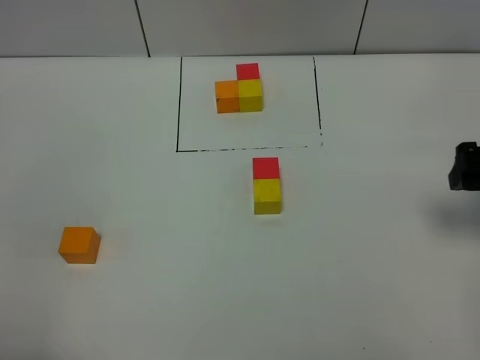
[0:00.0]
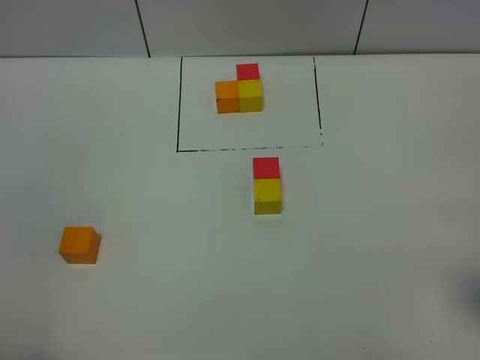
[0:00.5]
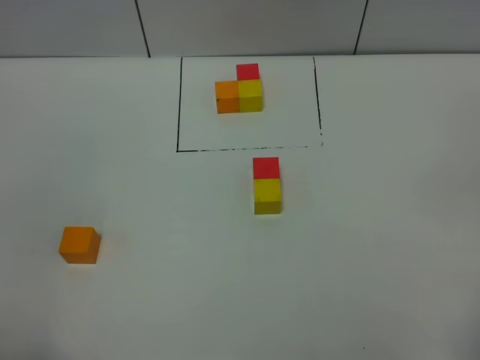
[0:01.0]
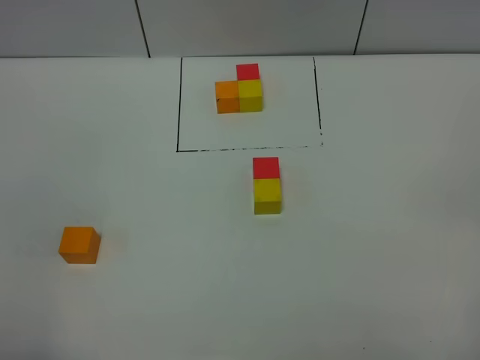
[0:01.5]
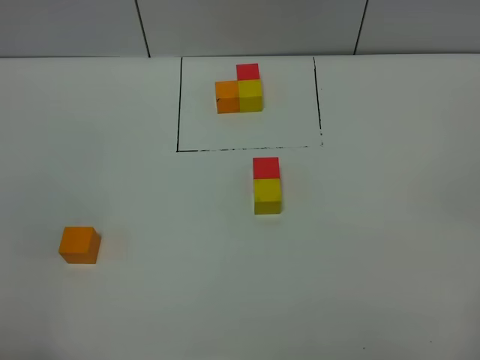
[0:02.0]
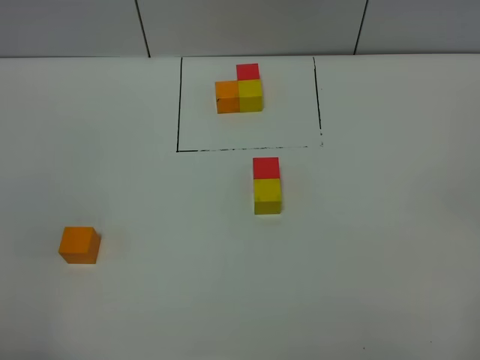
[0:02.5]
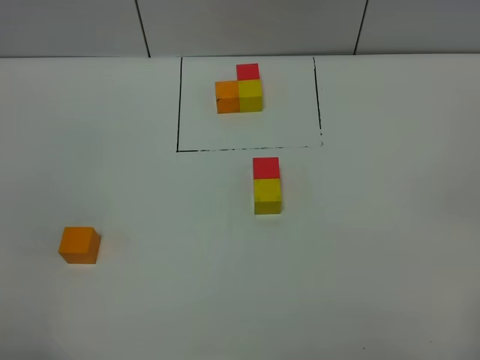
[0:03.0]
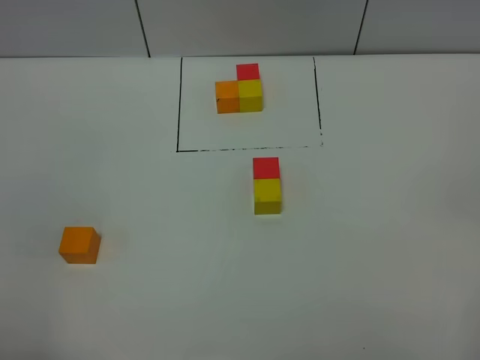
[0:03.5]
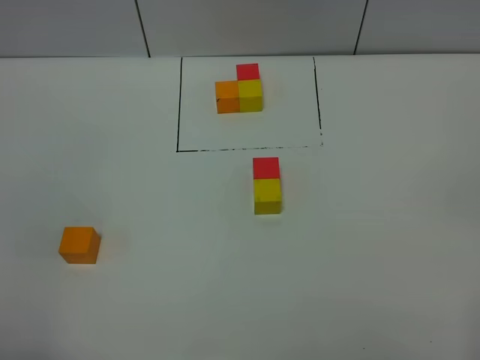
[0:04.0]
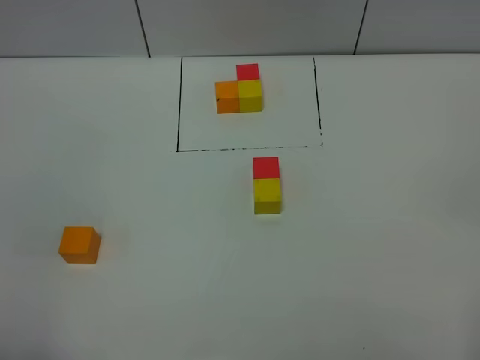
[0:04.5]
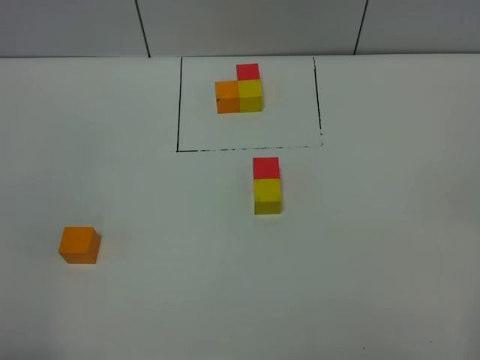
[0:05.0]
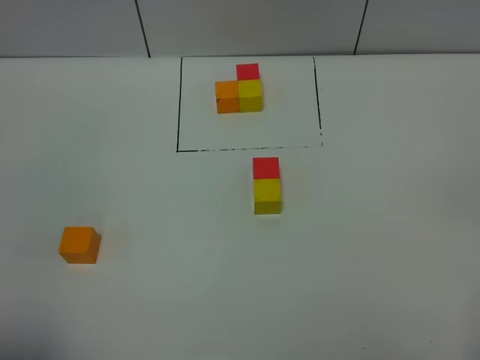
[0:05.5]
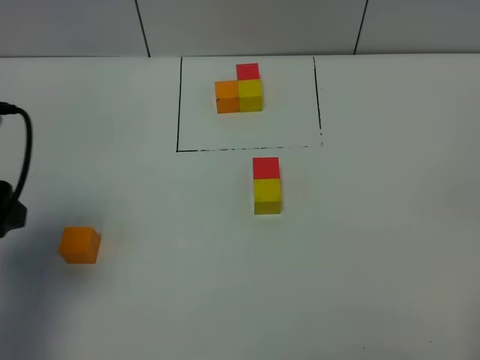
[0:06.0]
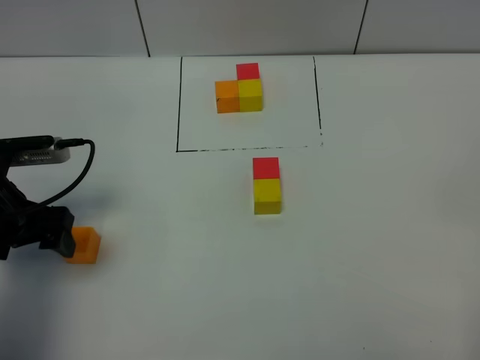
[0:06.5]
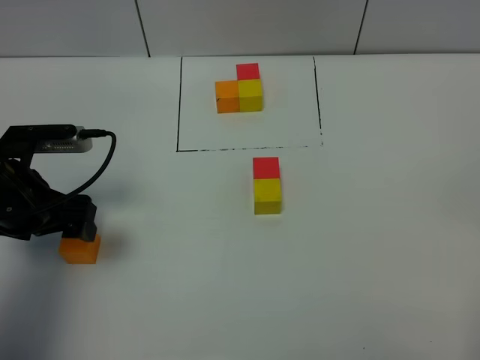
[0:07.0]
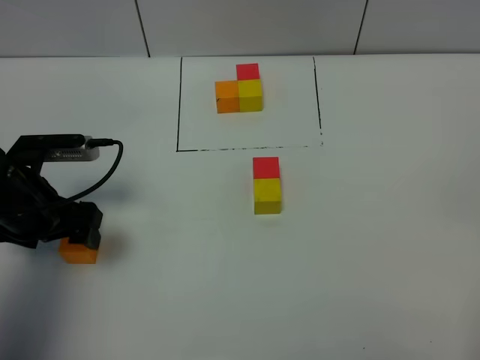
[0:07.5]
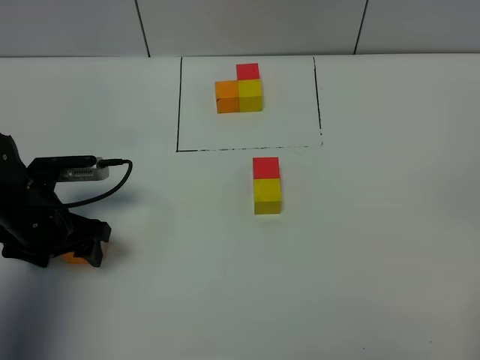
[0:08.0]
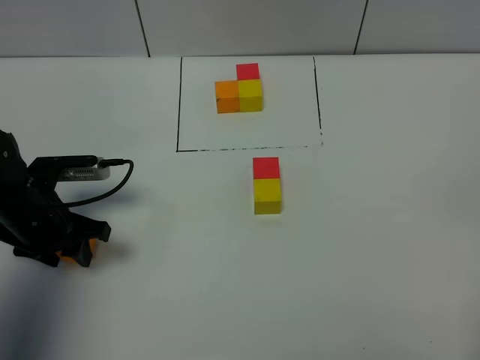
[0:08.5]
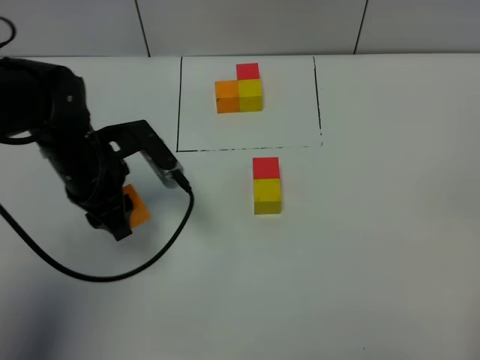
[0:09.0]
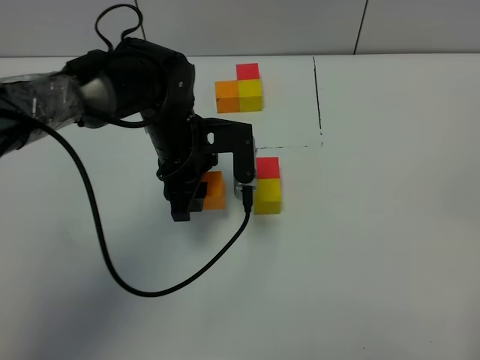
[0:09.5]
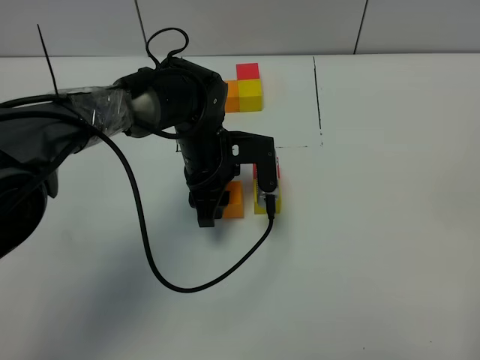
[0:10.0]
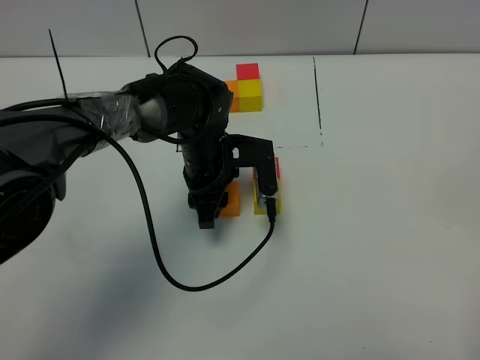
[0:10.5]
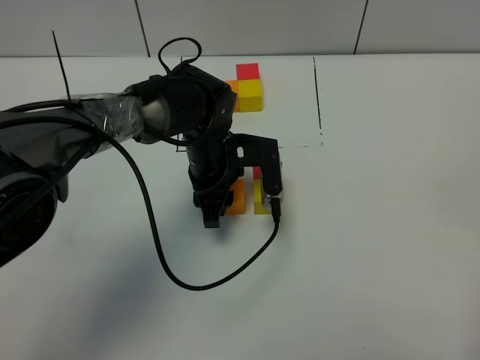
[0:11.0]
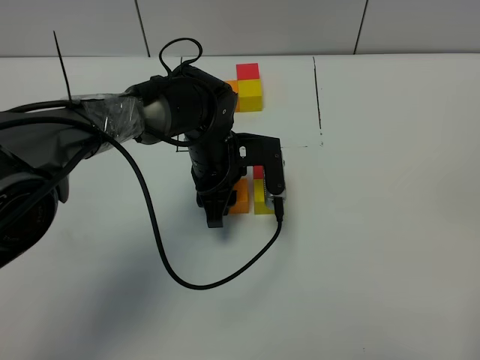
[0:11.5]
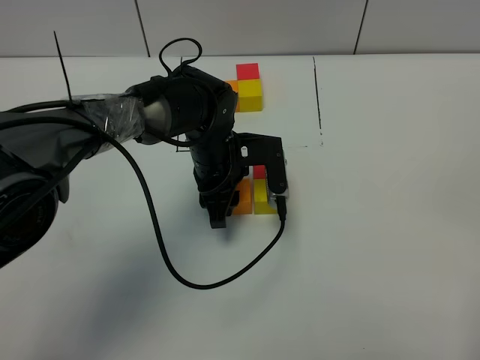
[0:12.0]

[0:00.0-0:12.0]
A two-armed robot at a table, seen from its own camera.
Task of the whole recording: According to the building block template in front, assemble the scattered blocks together.
0.0 to 2.0 s: The right gripper heads backward, covering about 25 cm.
2.0 to 4.0 s: The two grippers keep their place.
4.0 to 6.0 s: The left gripper heads forward, covering some 20 cm, and closes and opens again.
6.0 to 8.0 s: The left gripper heads downward and forward, covering approximately 15 cm.
8.0 to 10.0 s: The left gripper travels to the right by about 20 cm, and closes up.
10.0 to 12.0 s: The two grippers keep their place.

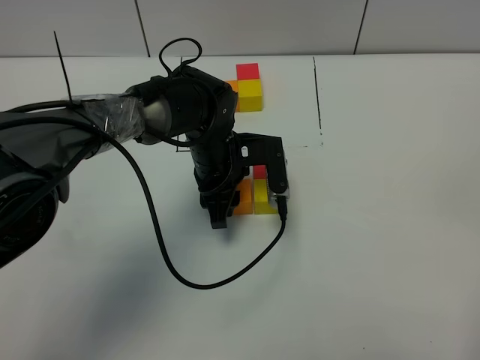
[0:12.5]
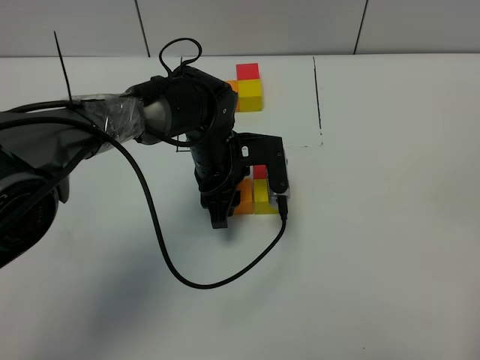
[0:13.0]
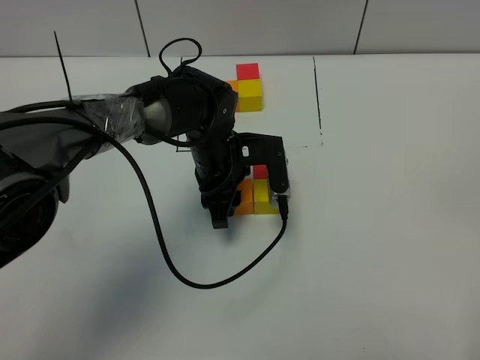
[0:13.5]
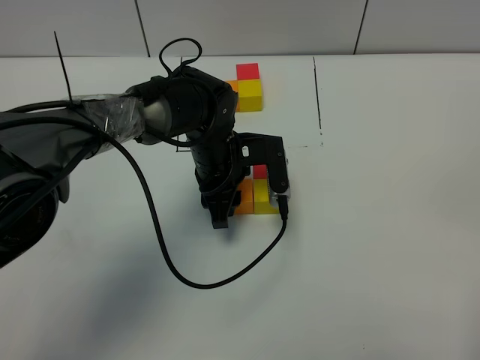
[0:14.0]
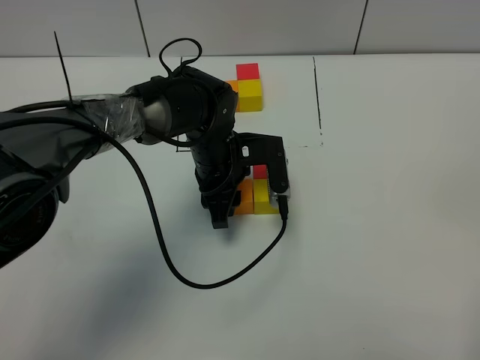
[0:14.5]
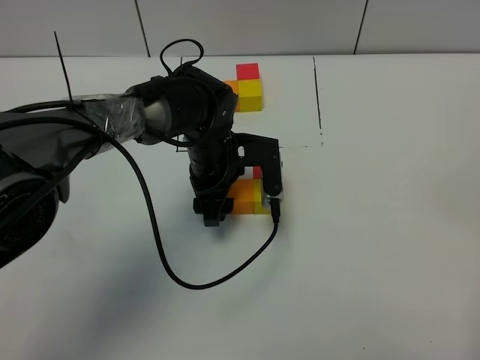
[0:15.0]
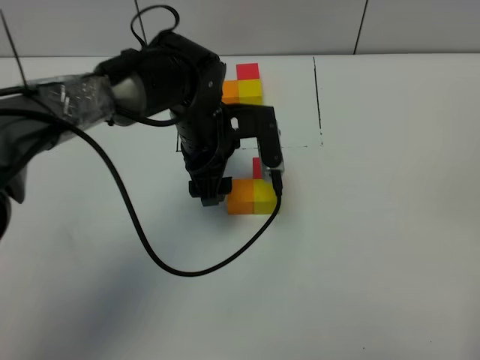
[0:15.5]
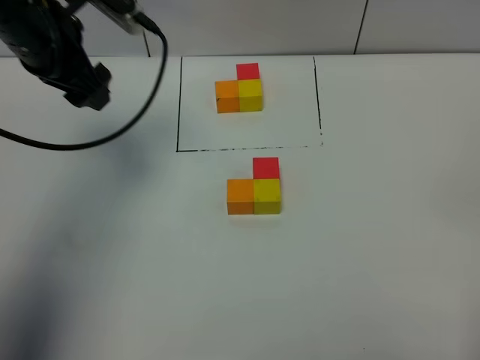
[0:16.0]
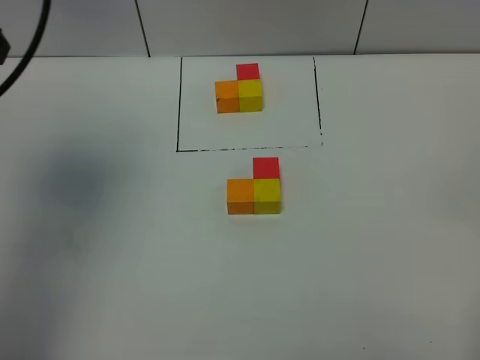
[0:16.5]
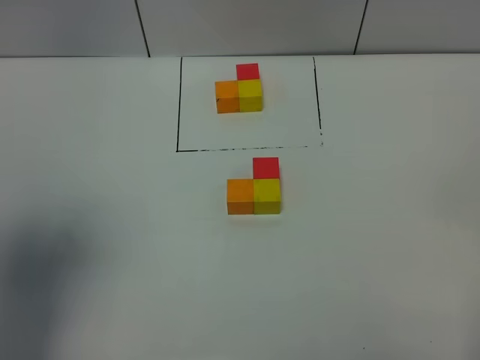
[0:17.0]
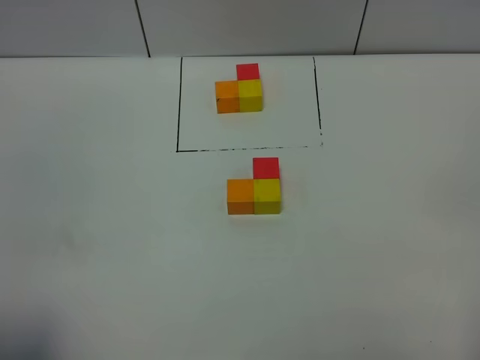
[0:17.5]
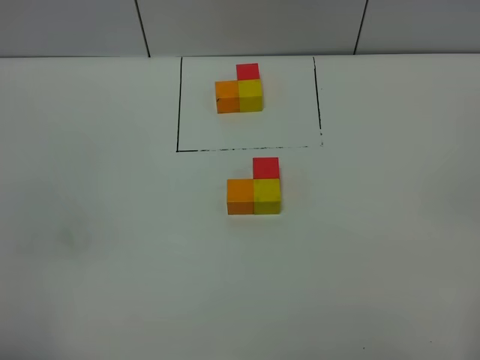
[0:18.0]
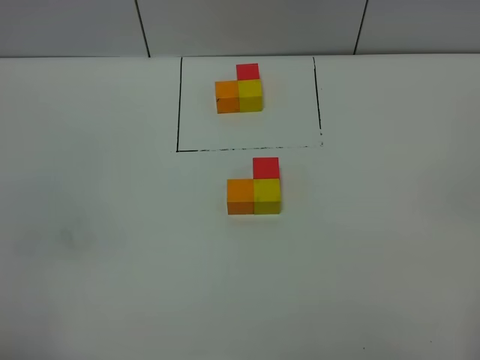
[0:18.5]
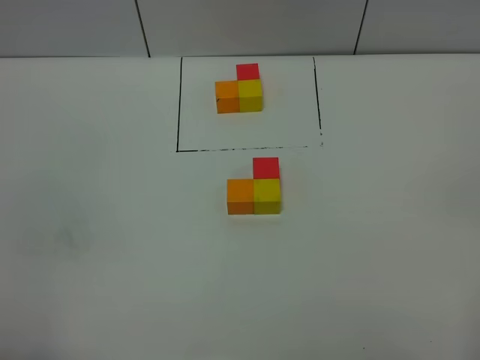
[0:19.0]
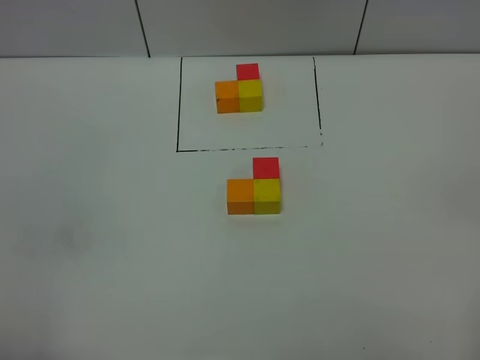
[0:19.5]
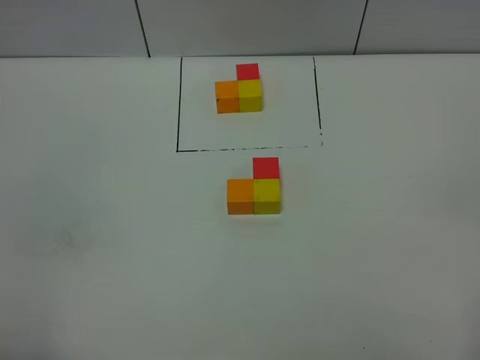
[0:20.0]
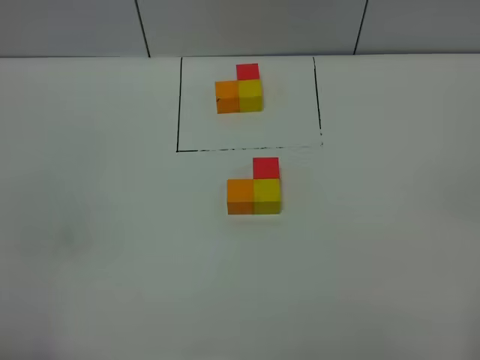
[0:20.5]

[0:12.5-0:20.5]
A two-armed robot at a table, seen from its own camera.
Task of the whole recording: According to the building block template in front, assemble the scattered blocks together.
Step, 12.5 to 15.0 s: Put the orange build block on the left of the yellow build block.
12.5 to 14.5 s: Both grippers stay put.
14.5 to 16.5 s: The left gripper heads upward and to the left, covering about 40 cm, and opens up.
16.5 to 18.5 s: The left gripper goes about 35 cm backward and downward.

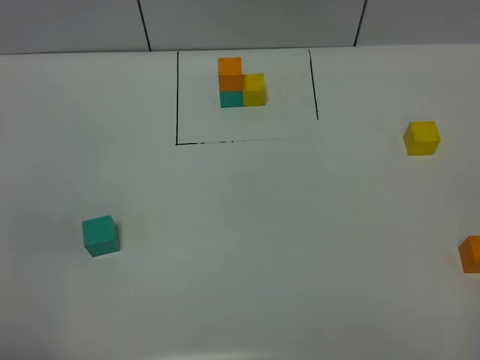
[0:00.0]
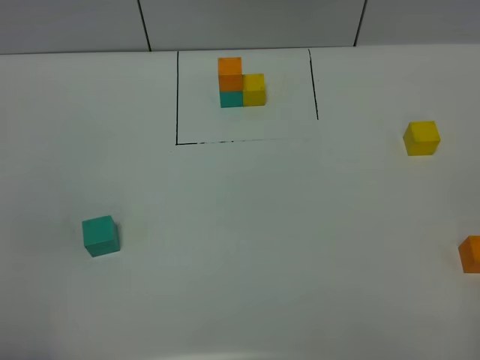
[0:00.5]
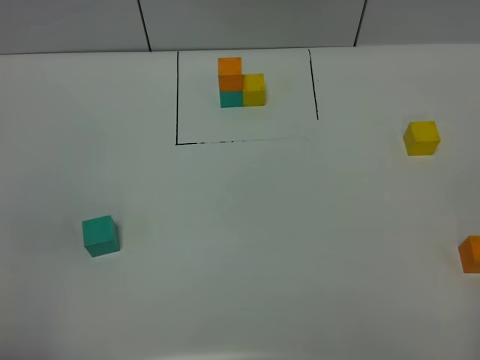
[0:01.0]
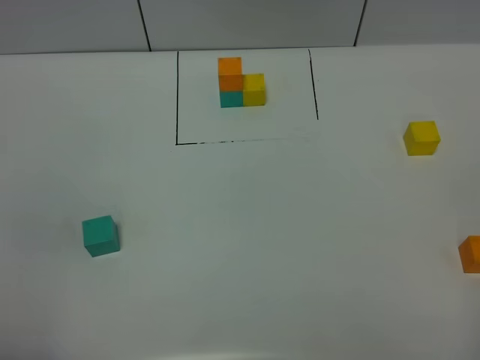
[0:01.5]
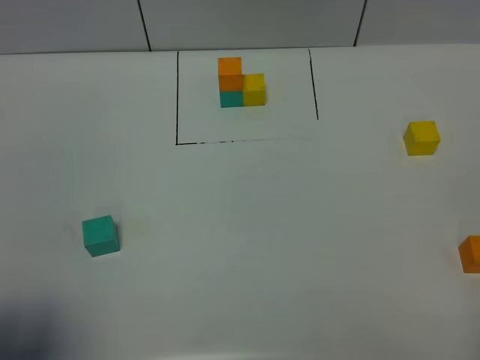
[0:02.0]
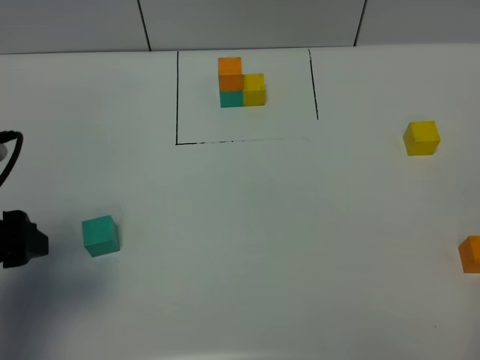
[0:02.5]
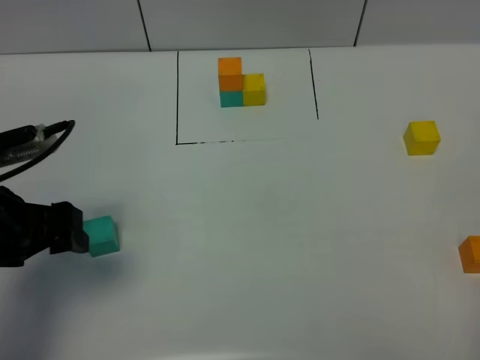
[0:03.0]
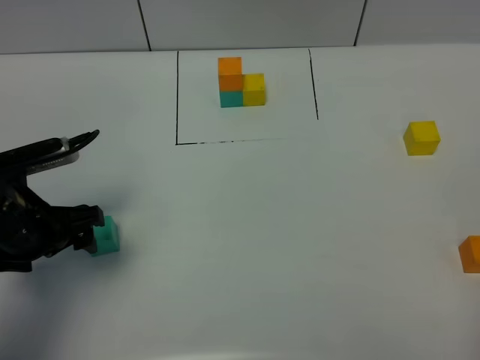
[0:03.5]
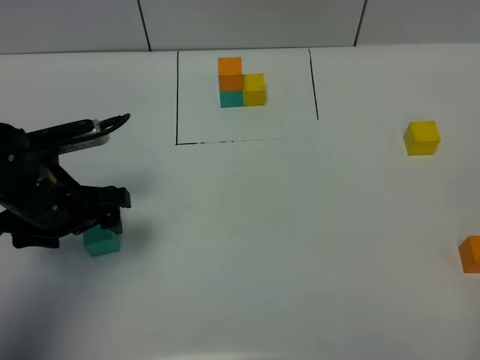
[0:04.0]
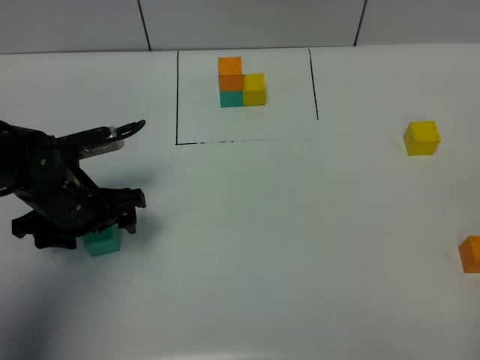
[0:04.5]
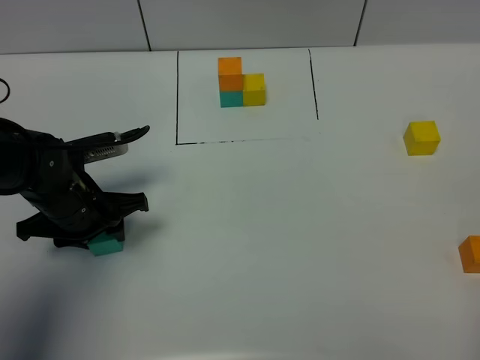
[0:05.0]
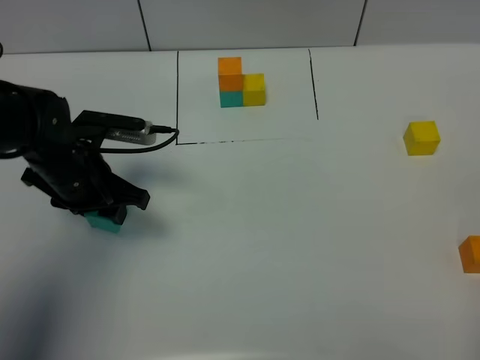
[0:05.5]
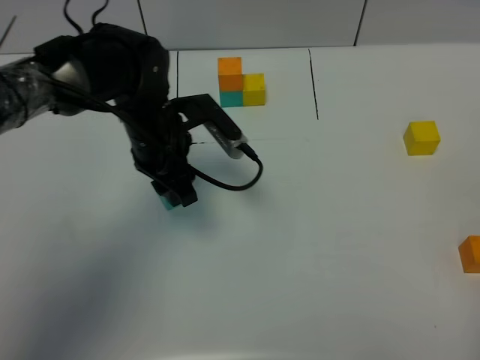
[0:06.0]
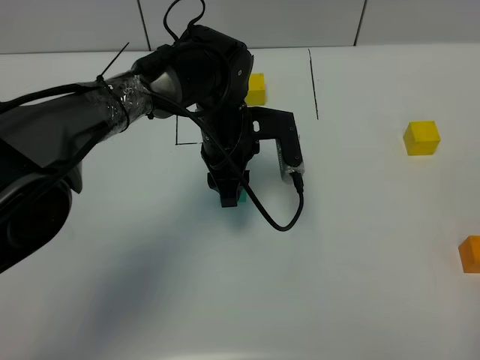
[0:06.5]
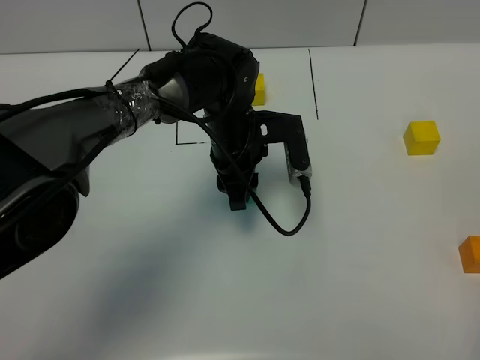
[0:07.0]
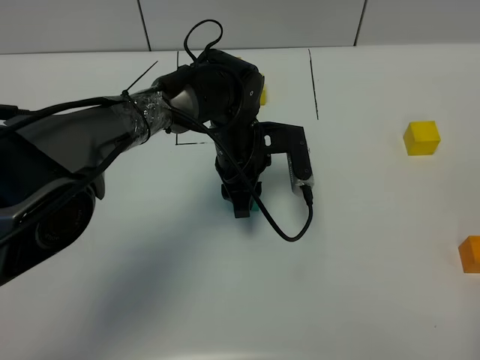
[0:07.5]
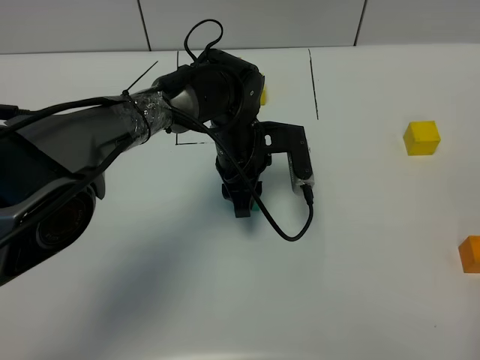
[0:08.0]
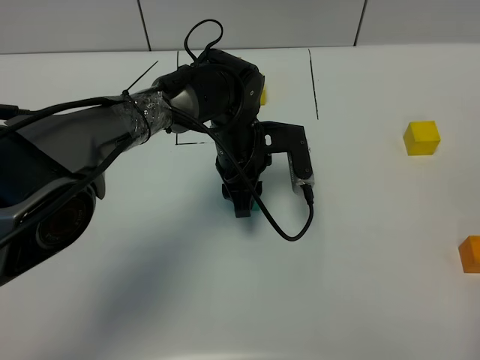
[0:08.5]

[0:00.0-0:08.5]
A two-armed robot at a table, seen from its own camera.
Task of the whole recording: According to the building block template in front, assemble the scattered blocks together.
0.0 to 2.0 s: The left gripper goes approximately 5 cm forward.
2.0 to 4.0 s: The left gripper goes some 25 cm forward and downward.
4.0 to 6.5 s: The left gripper shifts approximately 25 cm to the right and forward, and closes its fingers.
6.5 to 8.5 s: The grippers stay close to where they were, moving slightly.
